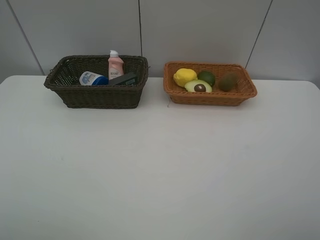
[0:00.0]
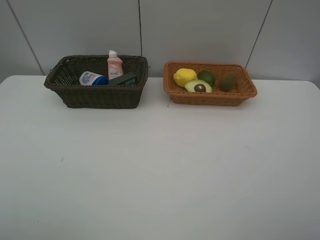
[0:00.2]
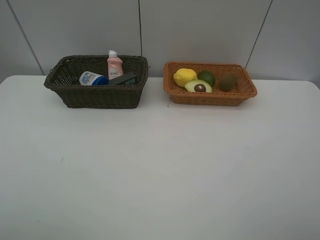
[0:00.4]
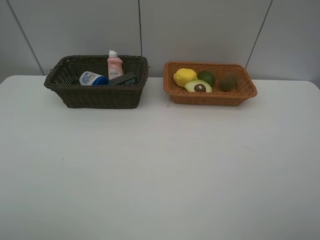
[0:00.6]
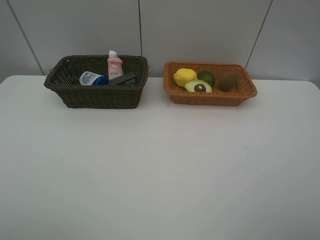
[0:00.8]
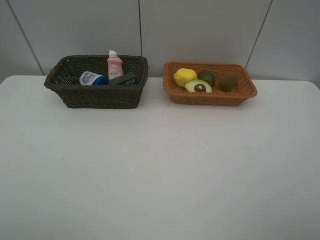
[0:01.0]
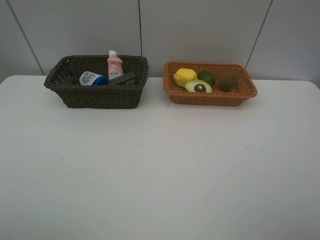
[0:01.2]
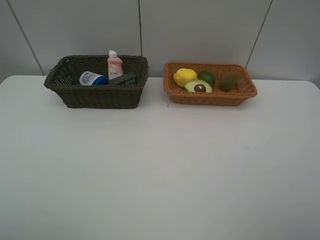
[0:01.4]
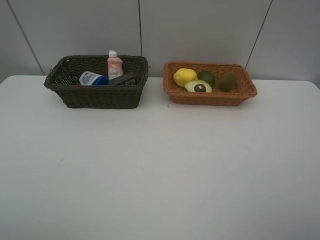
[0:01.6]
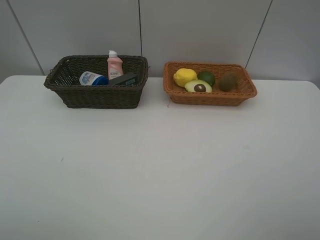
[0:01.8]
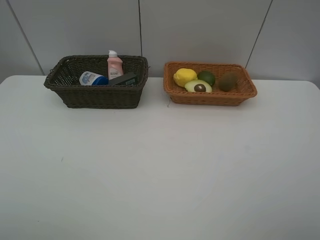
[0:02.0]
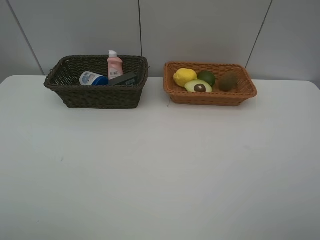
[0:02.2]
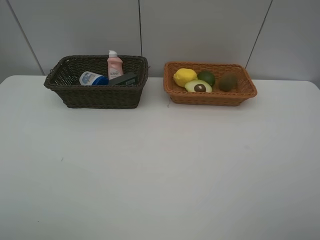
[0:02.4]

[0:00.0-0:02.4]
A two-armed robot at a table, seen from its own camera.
Task of the whole recording: Place multiple objects separately in different baskets.
0:01.2 to 0:02.4: Neither gripper changes place.
